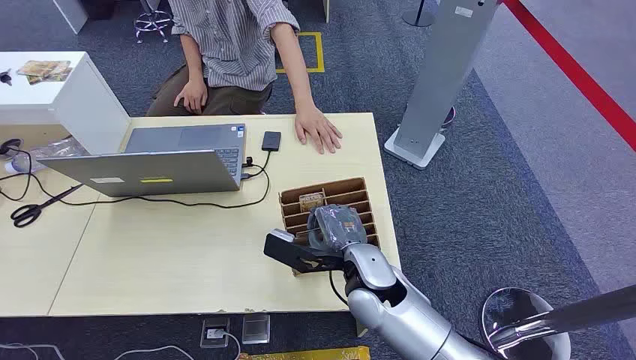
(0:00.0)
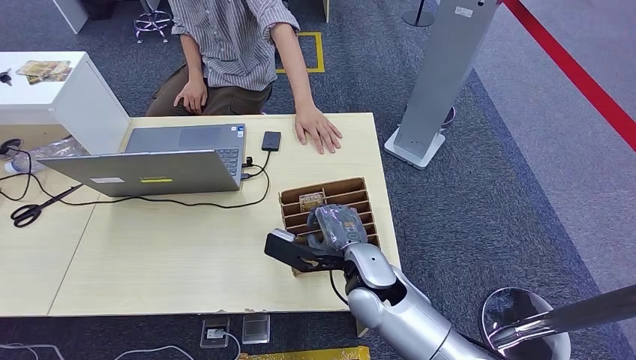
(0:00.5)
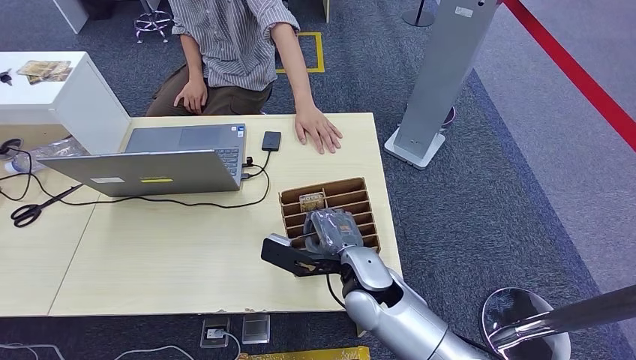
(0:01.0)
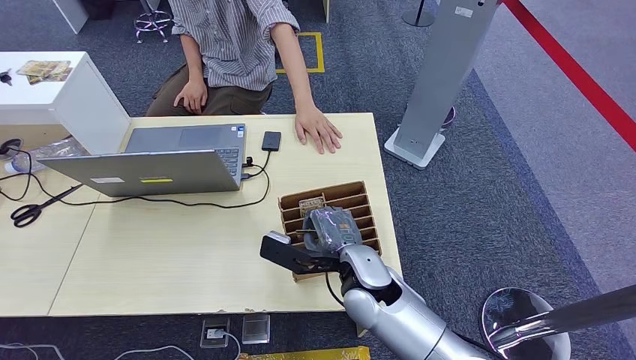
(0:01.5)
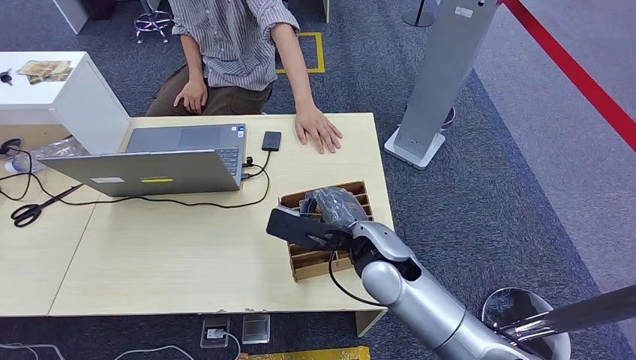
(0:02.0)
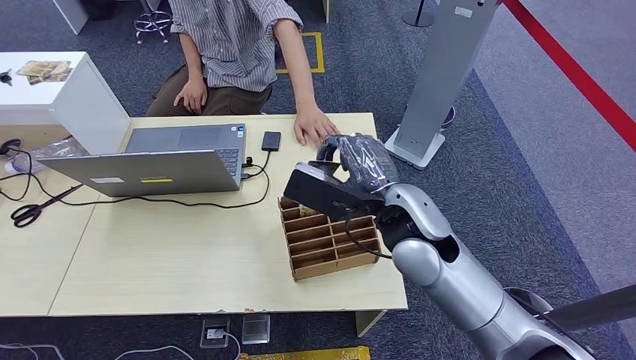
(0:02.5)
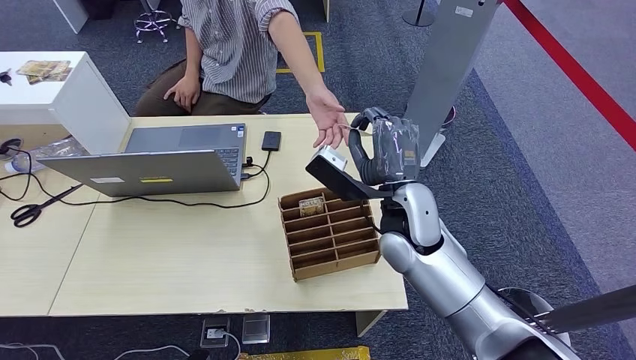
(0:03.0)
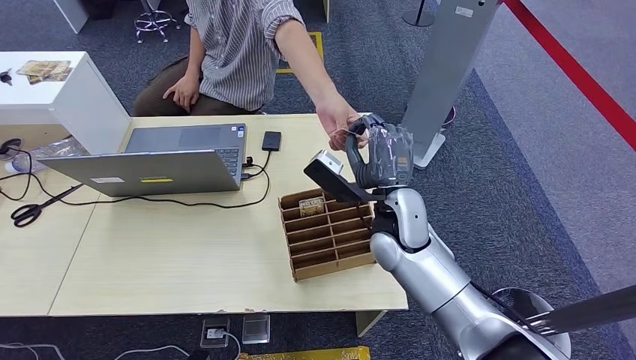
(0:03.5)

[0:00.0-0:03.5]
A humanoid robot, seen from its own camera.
Step, 0:00.0 to 0:02.0: Pick up the key card from the card box.
Step, 0:03.0 to 0:03.5: Hand the key card to the target.
0:02.0 to 0:03.5: The right hand goes roughly 5 cm forward, and moves about 10 cm upward and comes back.
